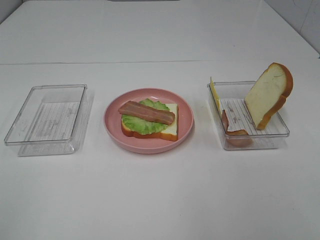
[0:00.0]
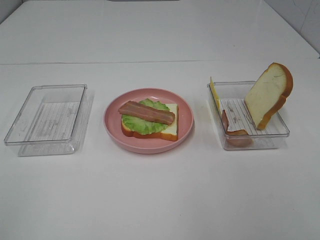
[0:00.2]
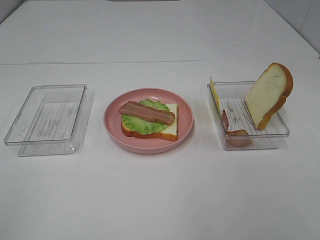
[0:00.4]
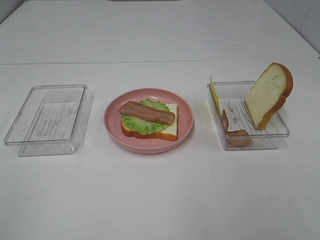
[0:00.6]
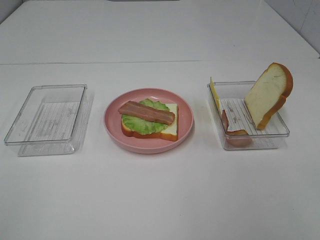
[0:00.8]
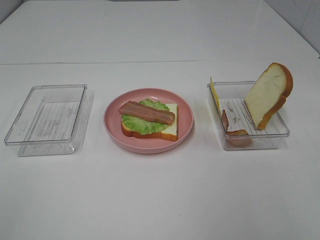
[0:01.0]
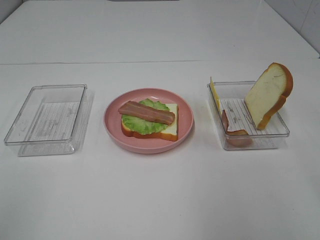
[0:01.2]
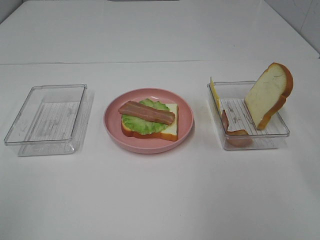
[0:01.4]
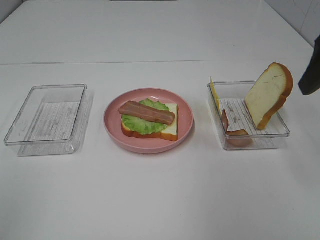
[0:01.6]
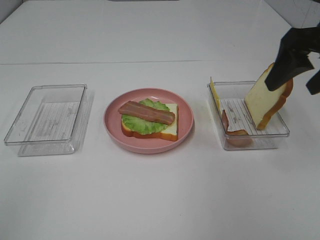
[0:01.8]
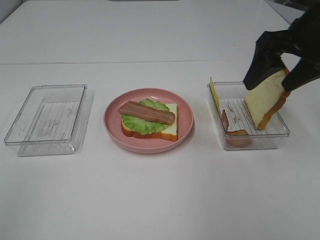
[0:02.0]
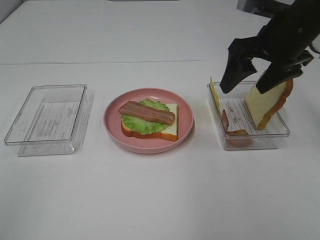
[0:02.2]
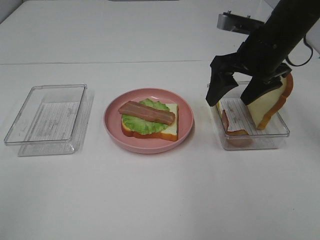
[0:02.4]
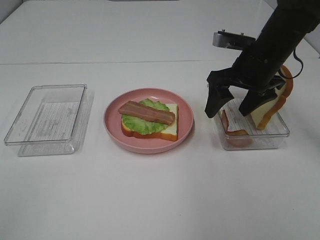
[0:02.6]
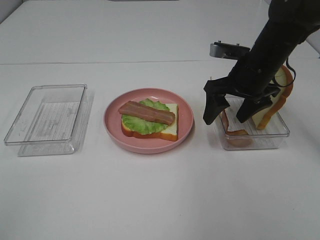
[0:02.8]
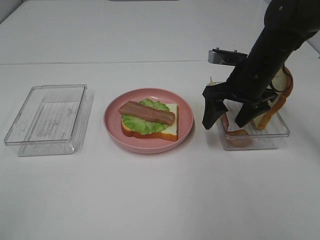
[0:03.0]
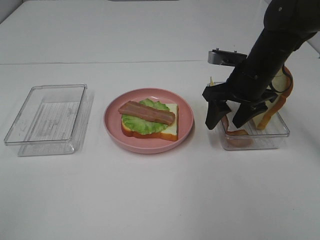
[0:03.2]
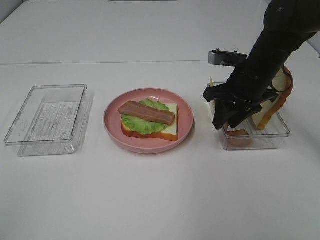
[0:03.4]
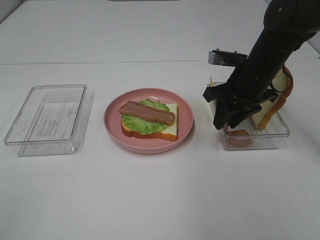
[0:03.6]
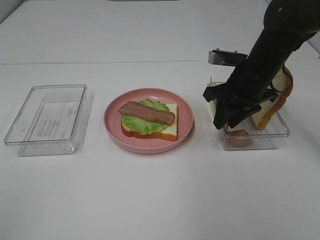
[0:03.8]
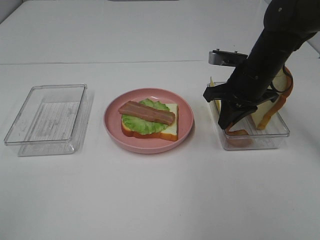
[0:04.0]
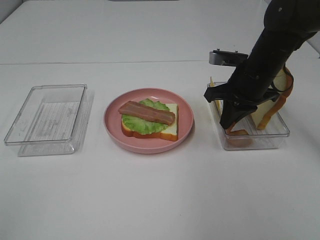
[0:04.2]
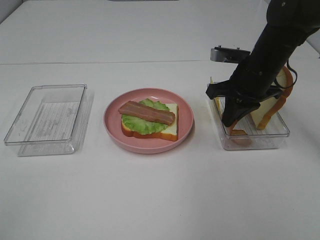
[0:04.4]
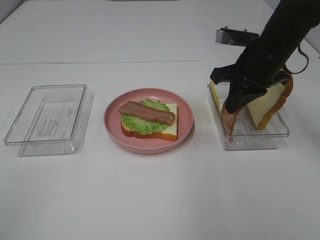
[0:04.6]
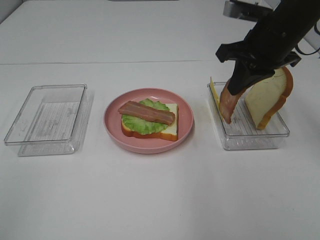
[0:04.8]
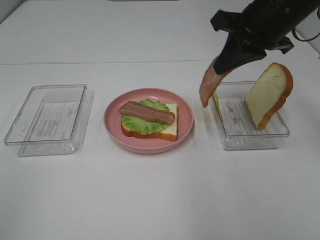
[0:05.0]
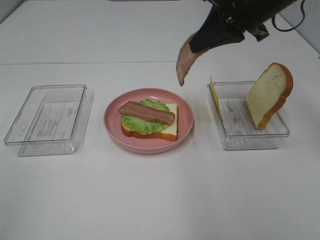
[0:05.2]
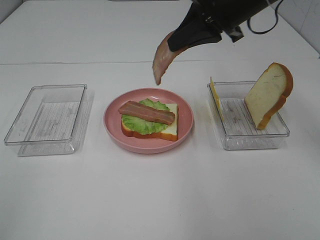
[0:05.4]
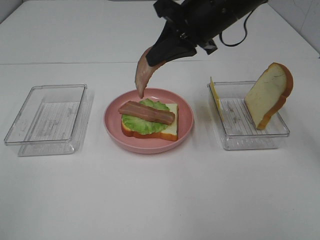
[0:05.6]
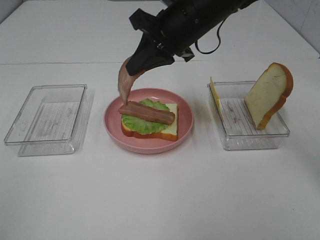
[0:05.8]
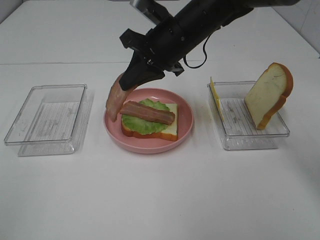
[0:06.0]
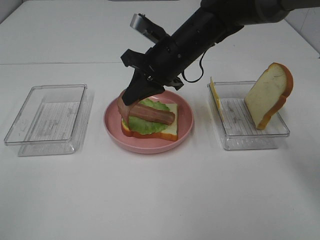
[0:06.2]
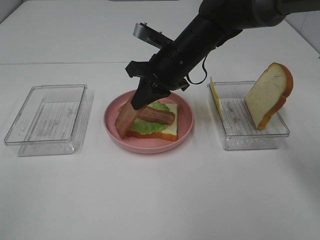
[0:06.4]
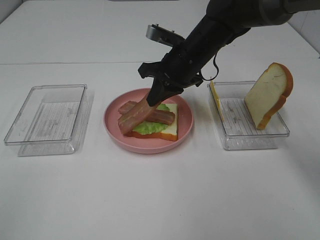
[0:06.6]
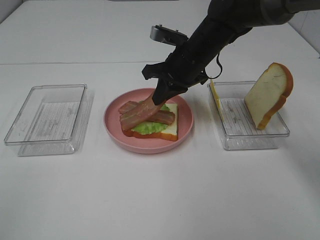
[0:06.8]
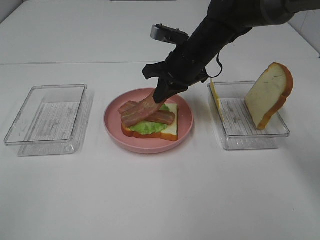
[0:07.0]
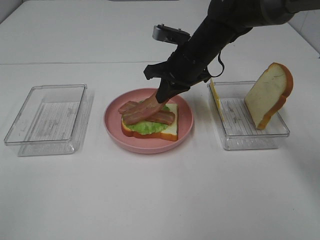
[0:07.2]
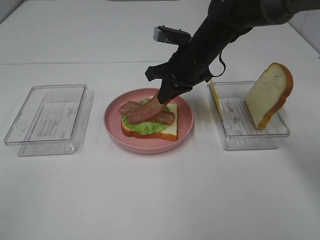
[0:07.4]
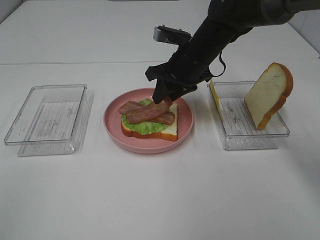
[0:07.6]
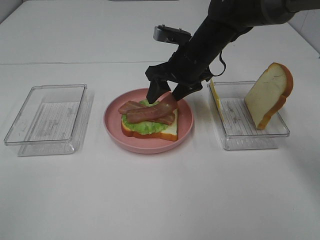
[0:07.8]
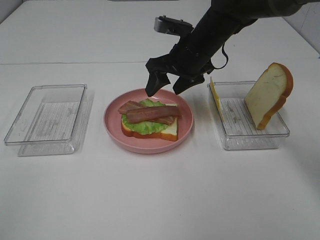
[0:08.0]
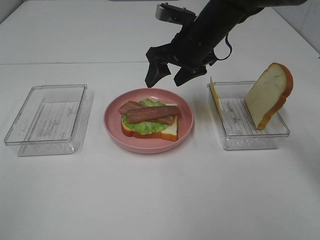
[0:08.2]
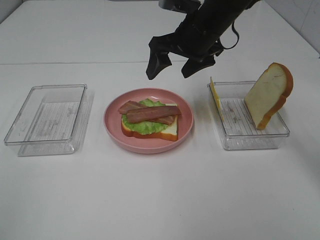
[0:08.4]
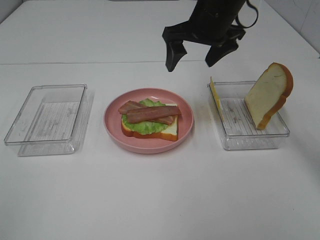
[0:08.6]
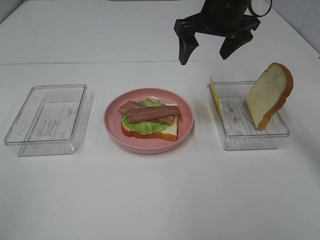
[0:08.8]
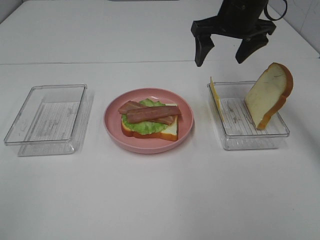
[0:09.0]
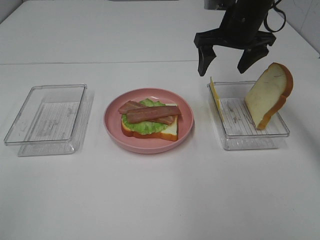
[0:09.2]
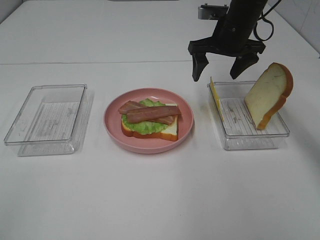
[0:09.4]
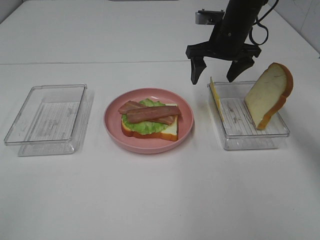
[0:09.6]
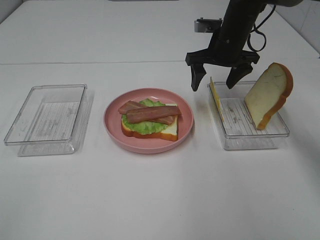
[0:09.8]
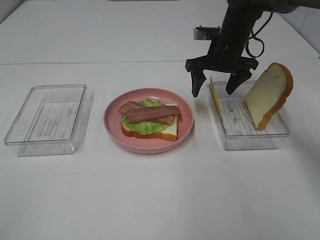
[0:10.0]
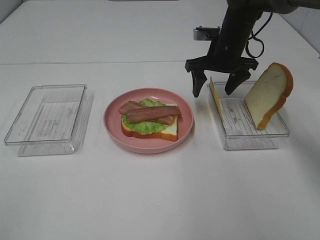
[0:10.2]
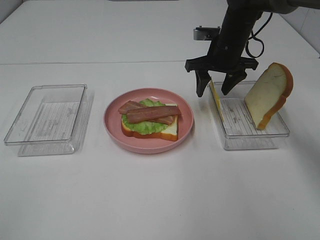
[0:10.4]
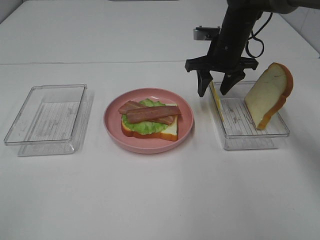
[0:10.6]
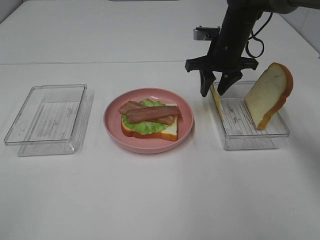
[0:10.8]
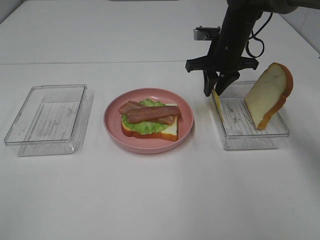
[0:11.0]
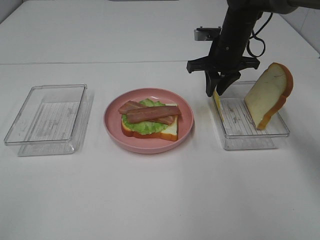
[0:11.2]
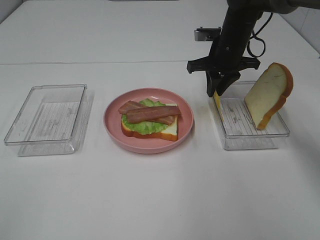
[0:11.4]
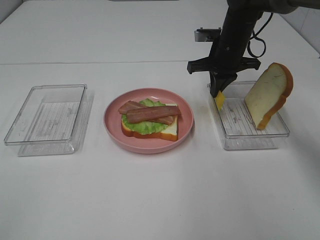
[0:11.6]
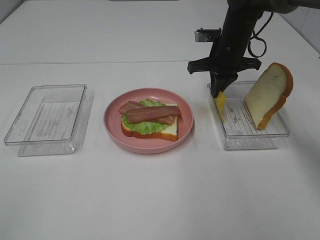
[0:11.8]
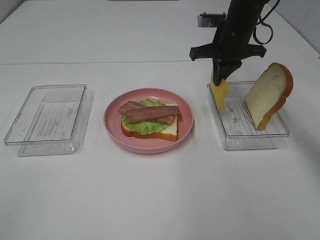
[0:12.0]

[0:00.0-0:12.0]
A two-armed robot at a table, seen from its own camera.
Task of the whole recording: Make sandwiches.
Step, 0:00.0 to 0:04.0: Right hand:grab the bacon.
Step, 0:04.2 to 0:08.0: Right hand:place bacon on bacon.
Step, 0:08.2 to 0:11.8: Right hand:grab the cheese slice.
0:00.0 to 0:01.6: The right gripper travels forward by about 25 cm.
0:01.6 to 0:03.0: The right gripper heads downward, forward and to the left, covering some 20 cm.
0:03.0 to 0:04.4: The right gripper closes.
0:04.4 to 0:06.0: The right gripper heads to the left, covering approximately 15 cm.
0:06.0 to 0:07.6: The right gripper moves downward, about 5 cm, and opens its fingers.
0:07.6 to 0:09.0: The right gripper travels upward and to the right by about 10 cm, and opens up.
0:09.0 to 0:10.4: The right gripper shifts roughly 10 cm downward.
0:10.4 to 0:12.0: The right gripper closes its fingers.

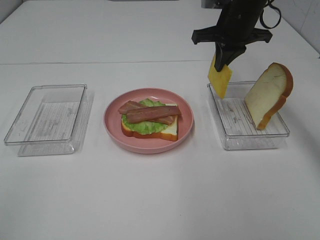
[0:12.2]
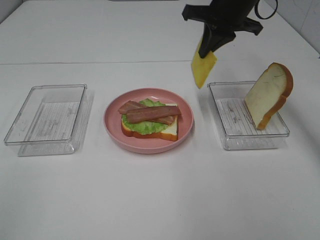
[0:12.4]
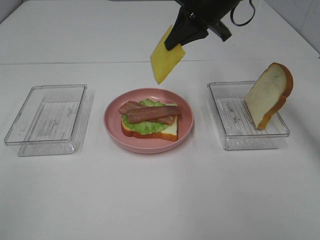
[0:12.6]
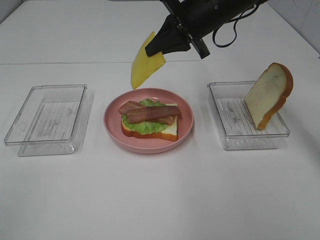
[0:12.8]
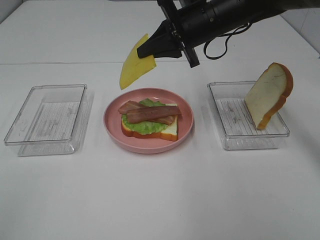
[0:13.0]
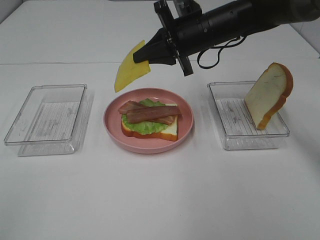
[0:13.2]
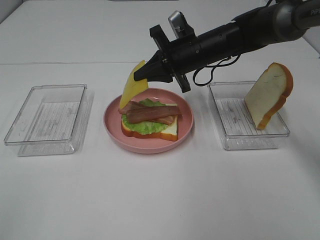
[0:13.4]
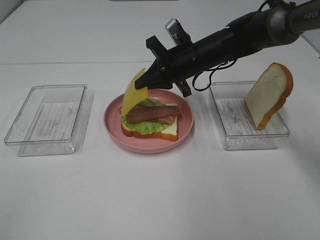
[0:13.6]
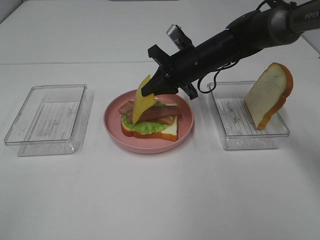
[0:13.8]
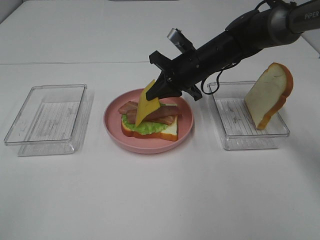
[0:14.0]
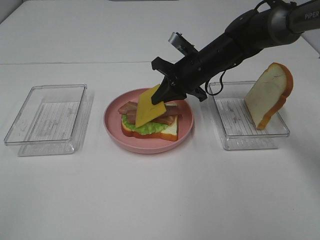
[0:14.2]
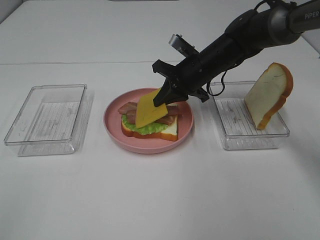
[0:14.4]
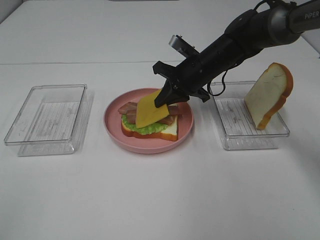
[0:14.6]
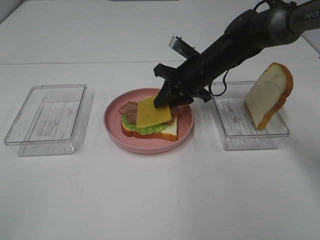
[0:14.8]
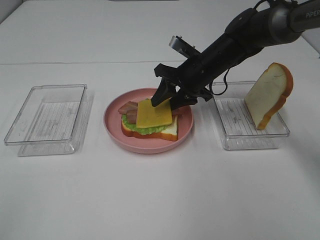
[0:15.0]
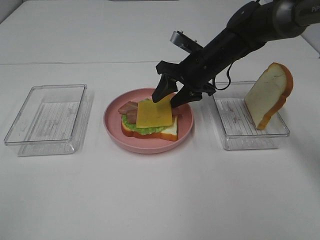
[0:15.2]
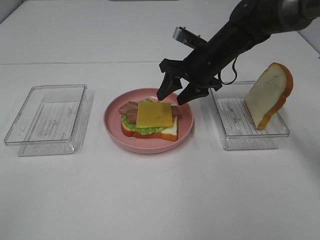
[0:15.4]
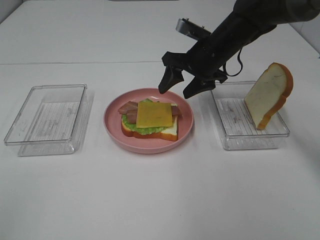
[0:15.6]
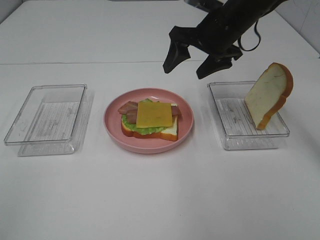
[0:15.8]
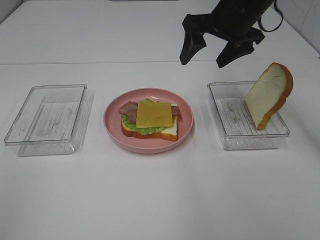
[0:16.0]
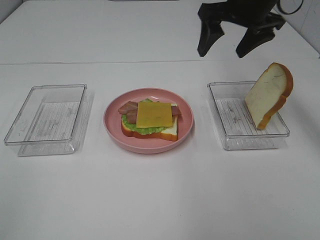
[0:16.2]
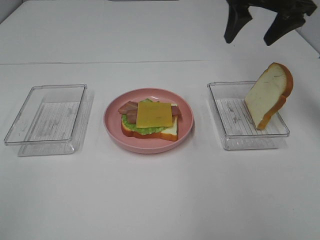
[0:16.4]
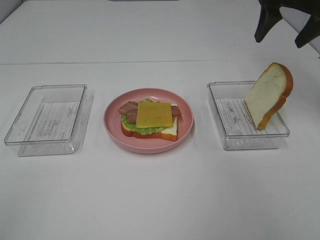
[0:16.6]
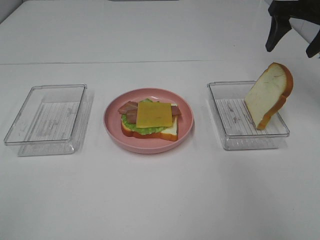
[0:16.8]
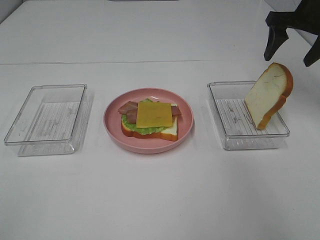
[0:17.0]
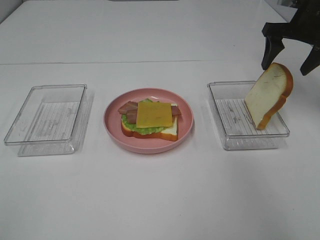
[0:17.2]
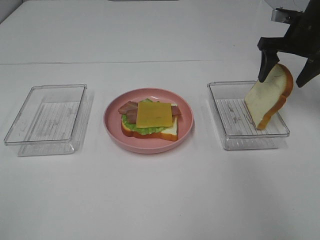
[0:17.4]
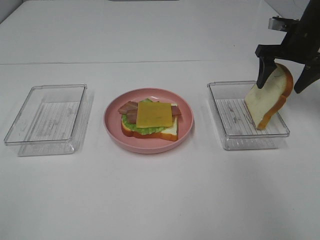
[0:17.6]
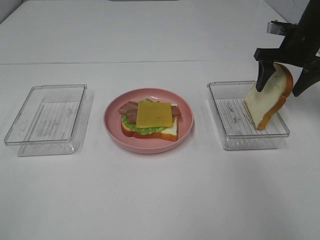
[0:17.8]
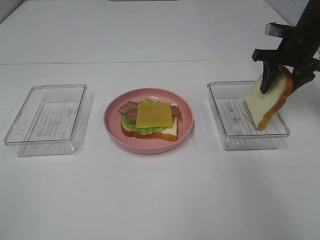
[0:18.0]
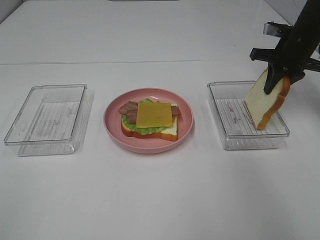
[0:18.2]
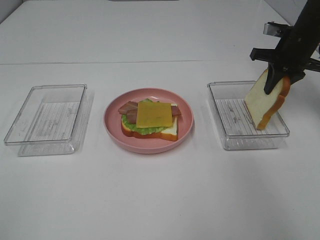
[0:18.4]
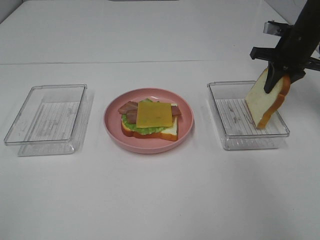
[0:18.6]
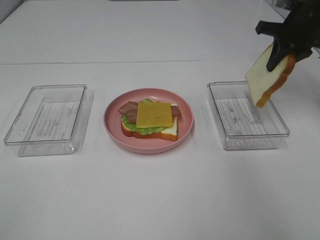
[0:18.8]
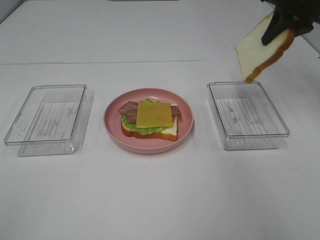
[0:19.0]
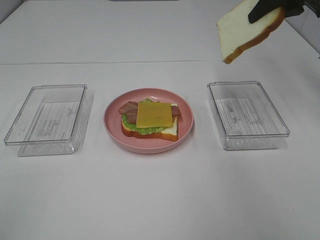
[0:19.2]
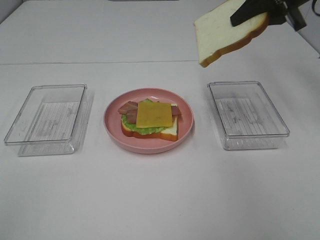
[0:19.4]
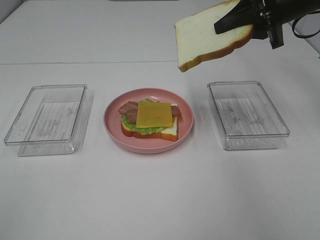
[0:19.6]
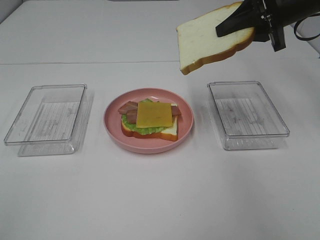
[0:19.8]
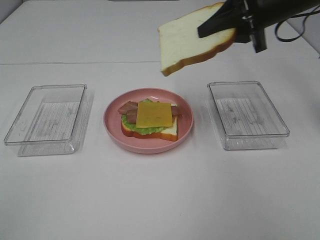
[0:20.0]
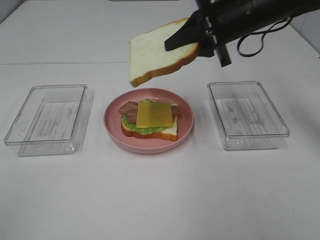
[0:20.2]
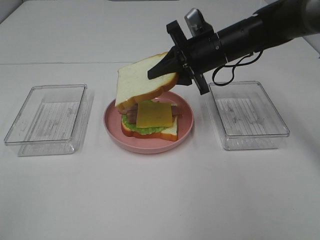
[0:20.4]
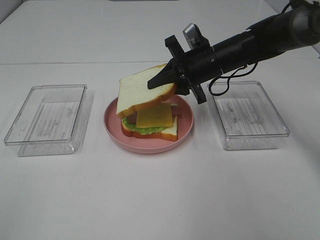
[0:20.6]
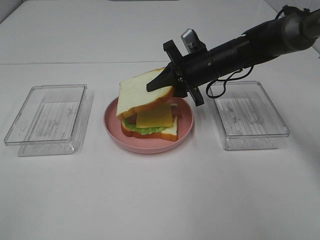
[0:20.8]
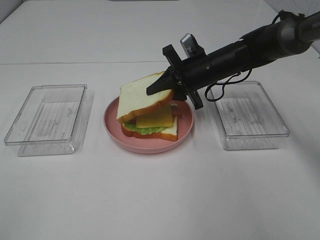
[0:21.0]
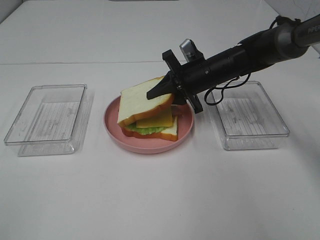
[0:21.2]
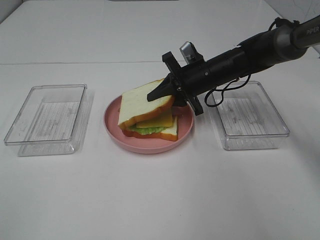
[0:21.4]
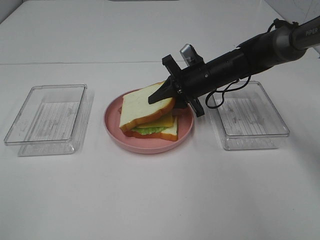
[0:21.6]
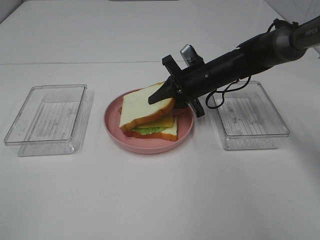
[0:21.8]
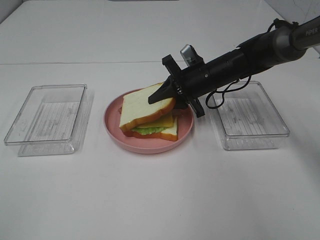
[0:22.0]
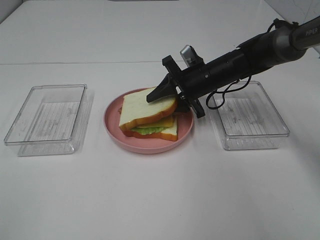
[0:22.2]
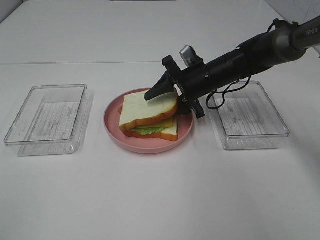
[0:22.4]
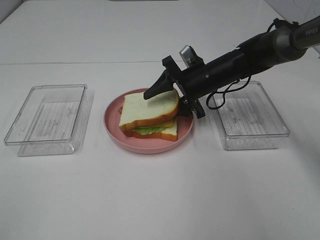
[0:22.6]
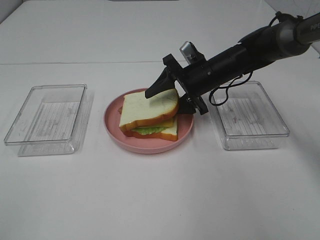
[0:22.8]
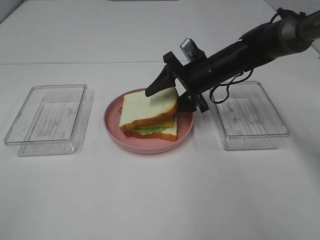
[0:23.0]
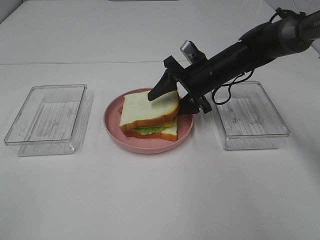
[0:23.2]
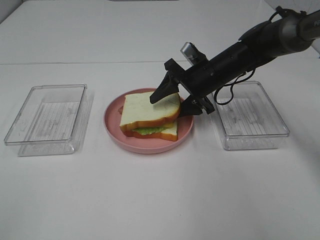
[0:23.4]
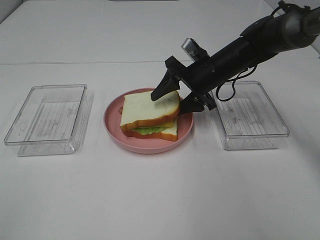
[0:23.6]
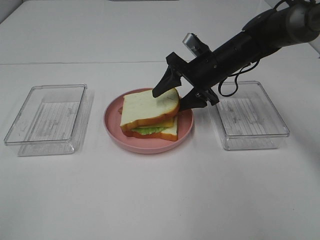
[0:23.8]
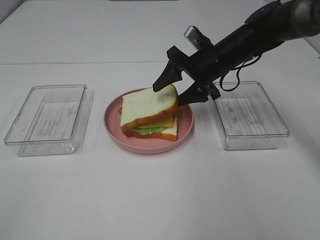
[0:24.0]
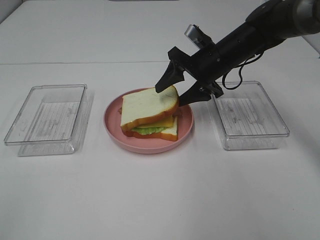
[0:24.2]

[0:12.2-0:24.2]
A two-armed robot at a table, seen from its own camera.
Task of the whole recording: Make sandwiches.
Step, 0:12.2 to 0:15.2: Right hand:place the cheese slice on top of the bacon.
Step, 0:15.4 to 0:18.2: Right hand:grab the bread slice.
0:12.2 to 0:13.8: The right gripper shifts roughly 10 cm downward and to the left.
0:13.8 to 0:15.2: The right gripper opens.
0:15.2 to 0:16.6: The right gripper is displaced upward and to the right by approximately 25 cm.
0:16.6 to 0:18.2: The right gripper goes some 10 cm downward, and closes its fingers.
0:18.2 to 0:19.8: The right gripper moves upward, backward and to the left, approximately 15 cm.
0:19.8 to 0:21.2: The right gripper shifts approximately 20 cm downward and to the left.
0:21.2 to 0:22.6: The right gripper opens its fingers.
0:22.6 to 0:24.2: The right gripper changes place by about 5 cm.
